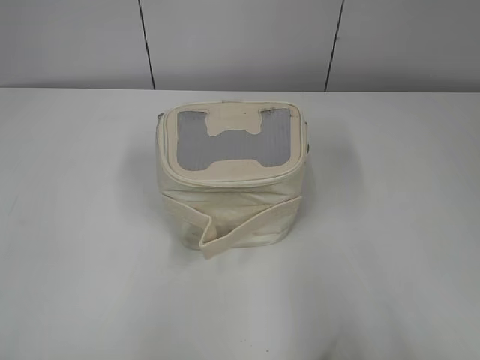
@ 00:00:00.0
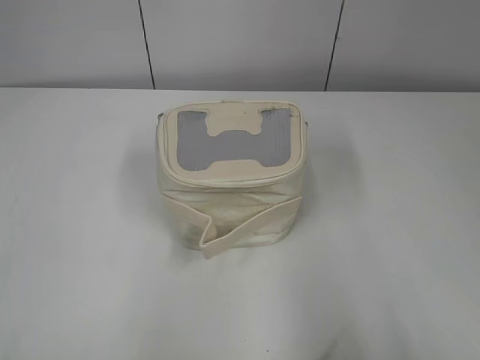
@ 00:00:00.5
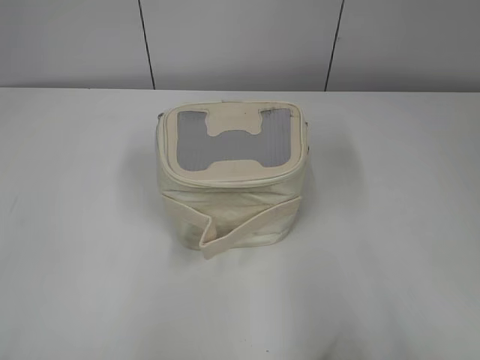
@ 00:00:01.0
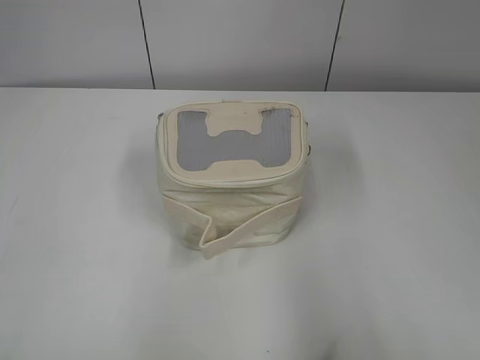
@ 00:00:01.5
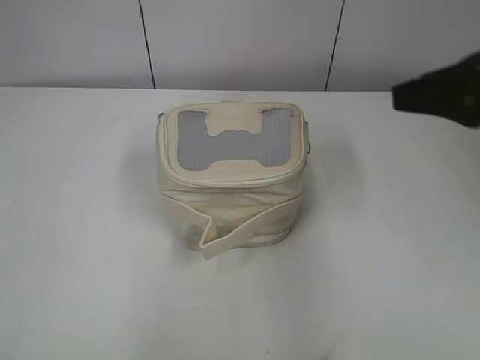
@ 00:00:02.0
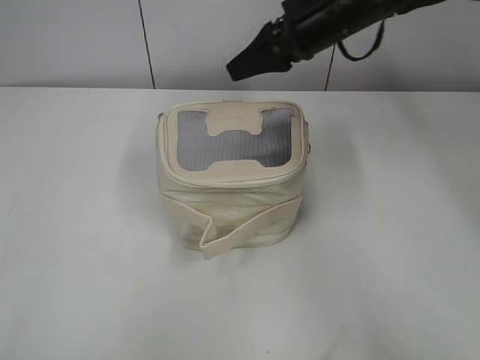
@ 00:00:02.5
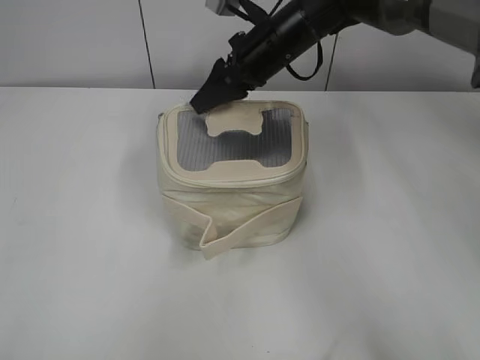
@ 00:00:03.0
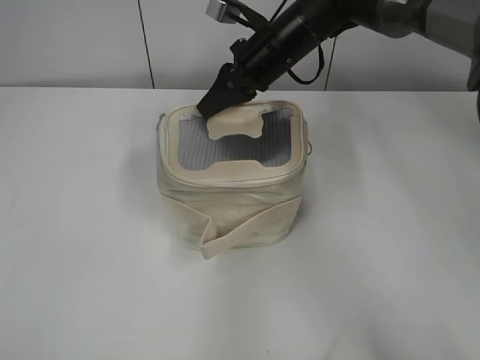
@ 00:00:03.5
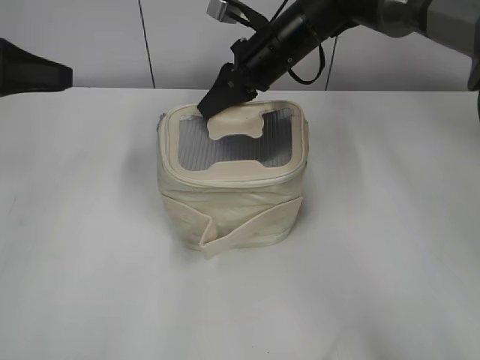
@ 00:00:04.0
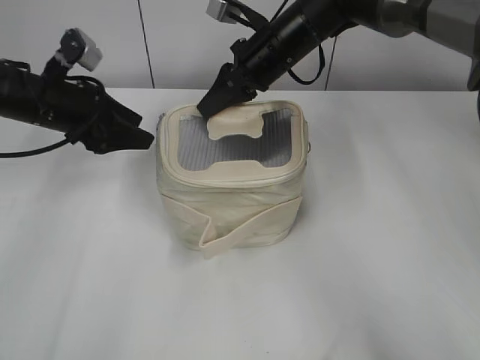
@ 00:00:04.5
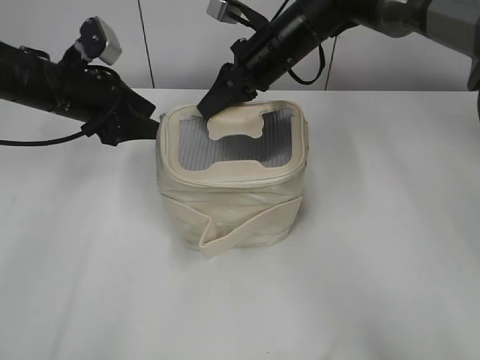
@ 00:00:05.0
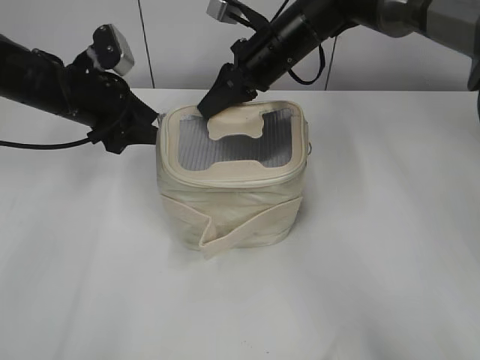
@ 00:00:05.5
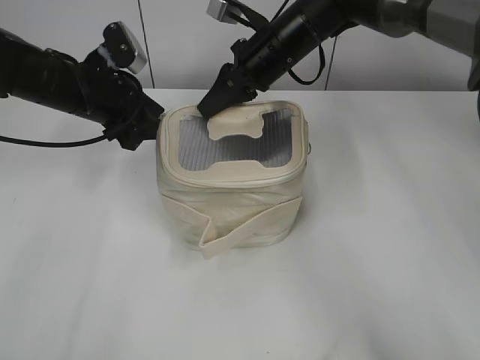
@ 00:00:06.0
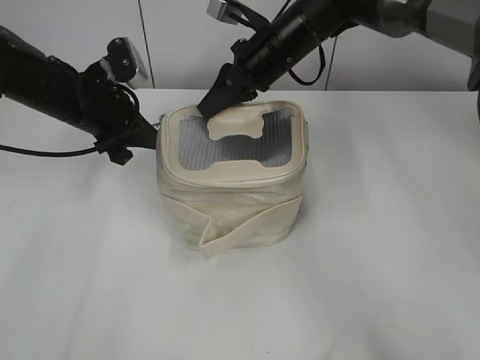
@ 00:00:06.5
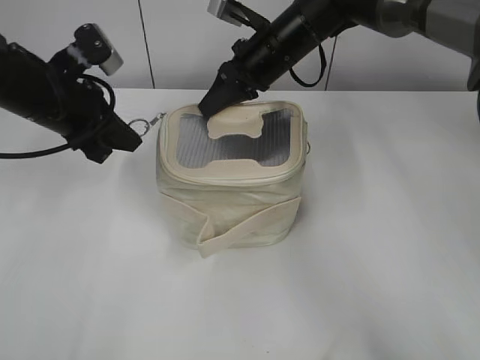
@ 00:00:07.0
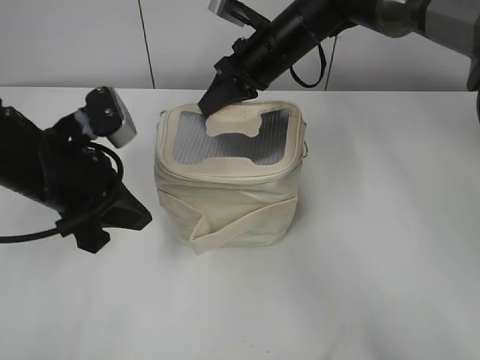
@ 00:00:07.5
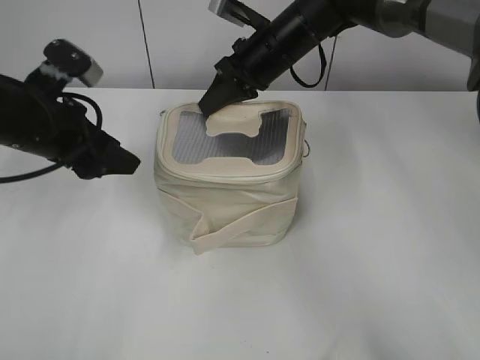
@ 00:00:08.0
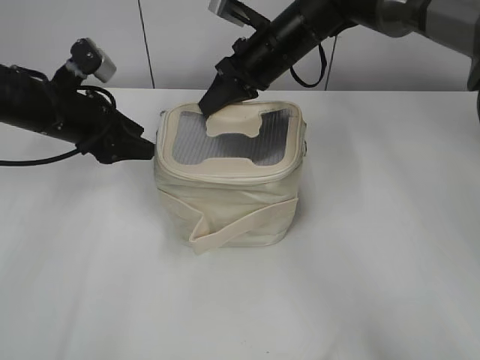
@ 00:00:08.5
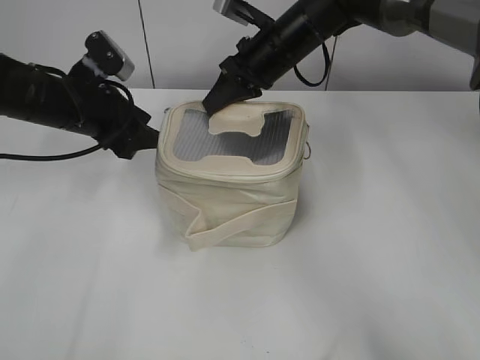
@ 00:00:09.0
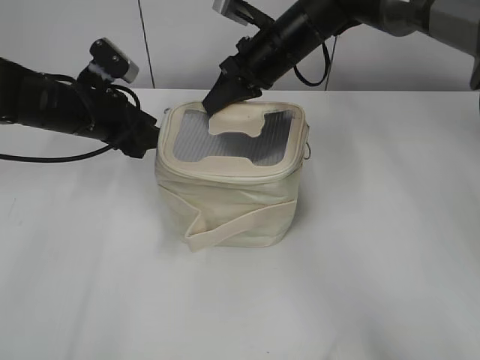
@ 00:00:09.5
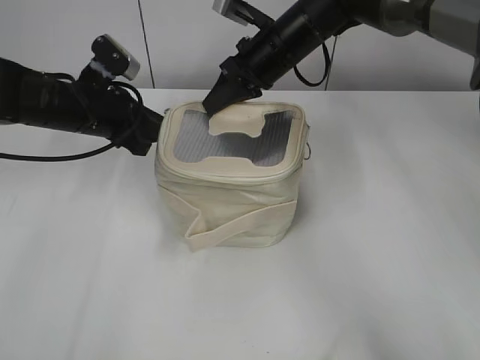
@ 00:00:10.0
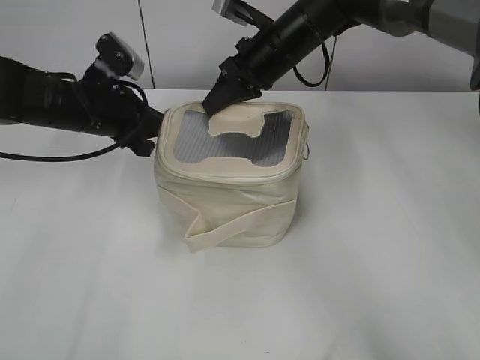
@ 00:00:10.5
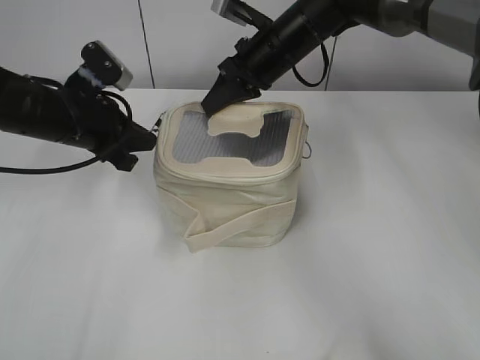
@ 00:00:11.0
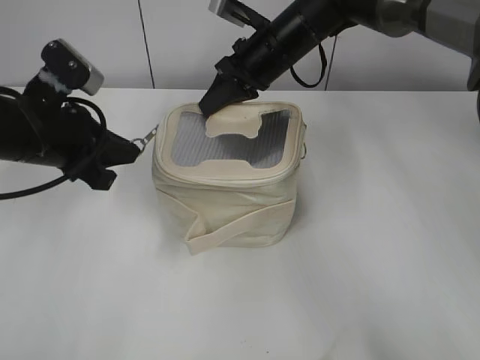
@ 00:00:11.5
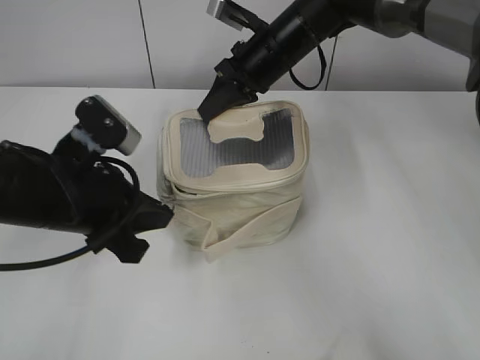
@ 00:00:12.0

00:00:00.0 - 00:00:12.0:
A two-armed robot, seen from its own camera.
00:00:02.0 - 00:00:04.0: The left gripper goes approximately 30 cm forward; the right gripper moves forward and to the left, roughly 35 cm, and closes up.
00:00:04.0 - 00:00:06.0: The left gripper shifts approximately 15 cm to the right, downward and forward.
00:00:06.0 - 00:00:08.0: The left gripper is displaced backward by approximately 10 cm, and closes and opens again.
00:00:08.0 - 00:00:10.0: The left gripper travels forward by some 10 cm.
00:00:10.0 - 00:00:12.0: The left gripper heads backward, covering about 15 cm, and closes.

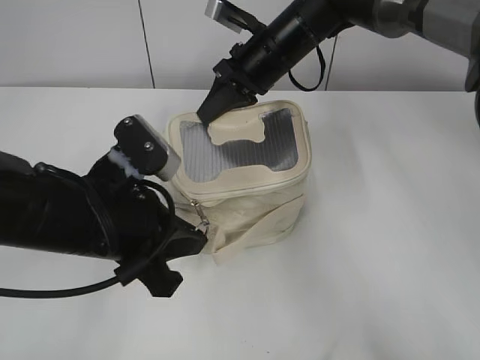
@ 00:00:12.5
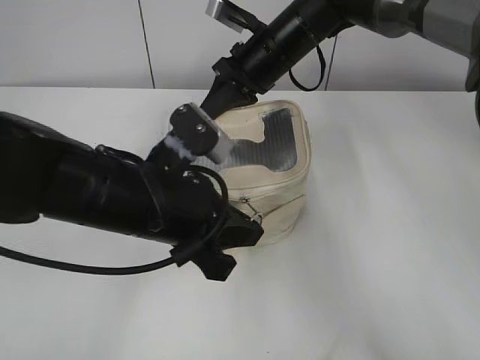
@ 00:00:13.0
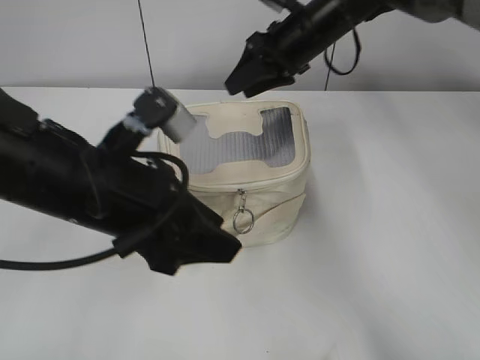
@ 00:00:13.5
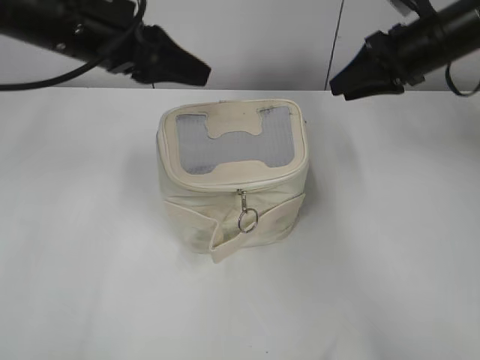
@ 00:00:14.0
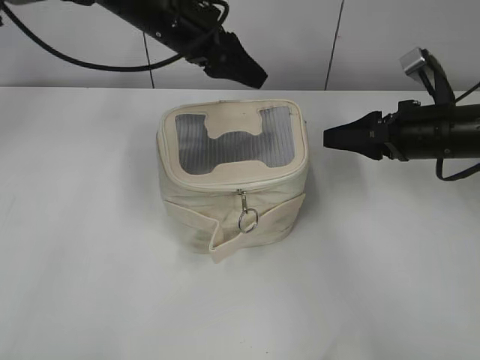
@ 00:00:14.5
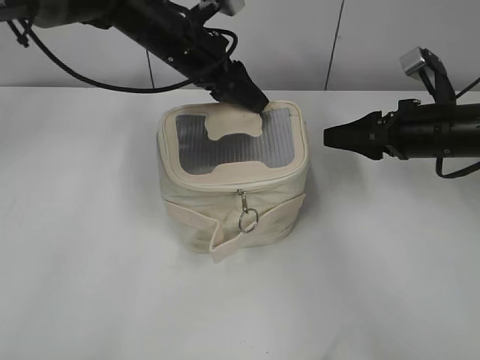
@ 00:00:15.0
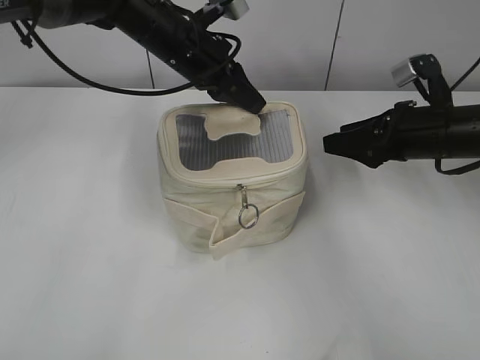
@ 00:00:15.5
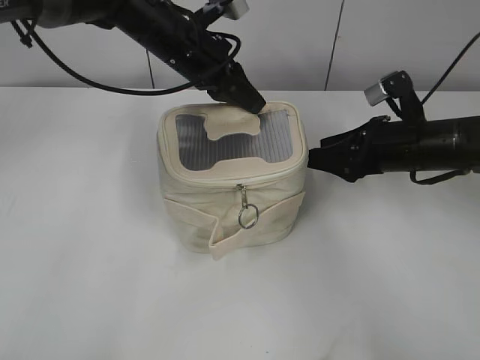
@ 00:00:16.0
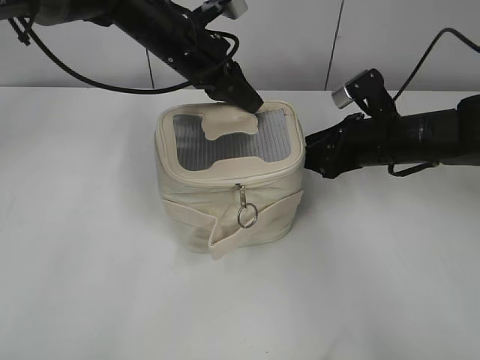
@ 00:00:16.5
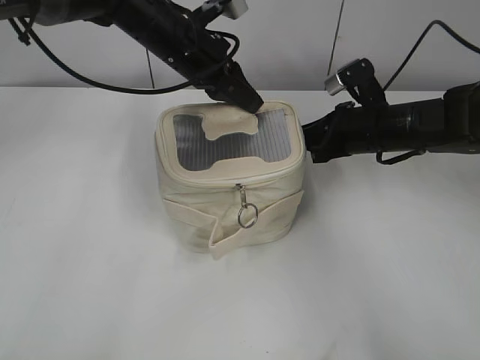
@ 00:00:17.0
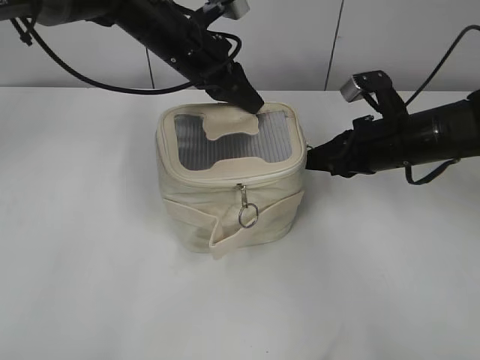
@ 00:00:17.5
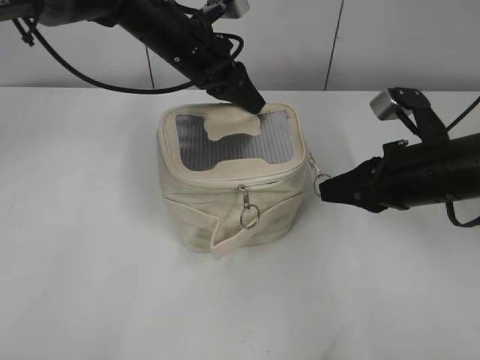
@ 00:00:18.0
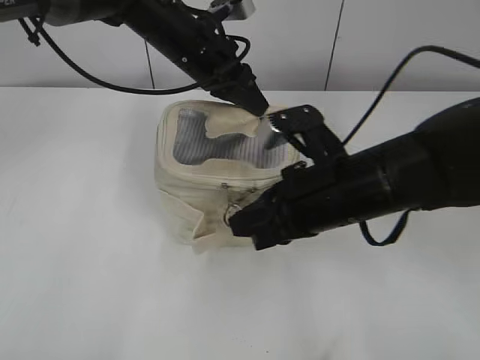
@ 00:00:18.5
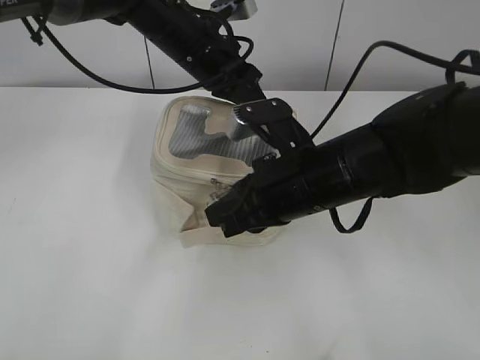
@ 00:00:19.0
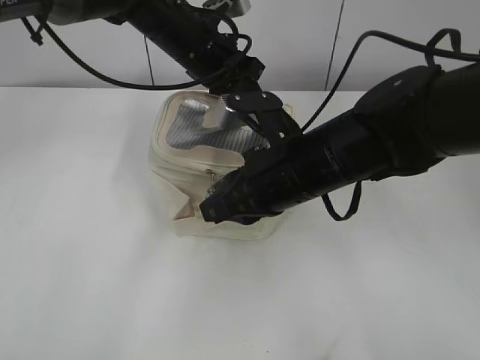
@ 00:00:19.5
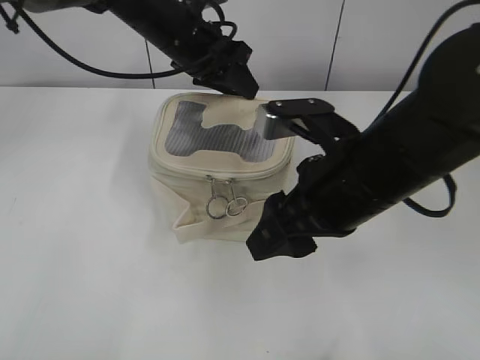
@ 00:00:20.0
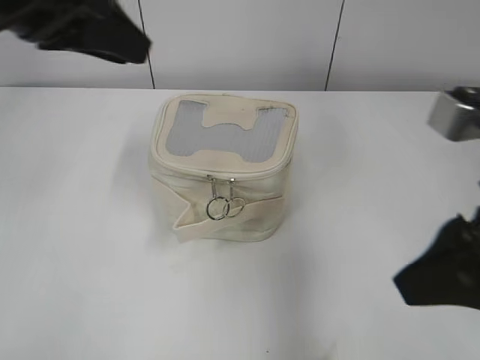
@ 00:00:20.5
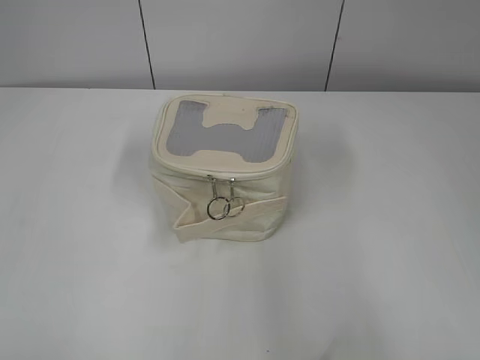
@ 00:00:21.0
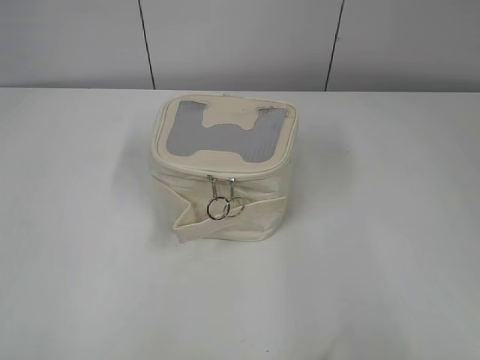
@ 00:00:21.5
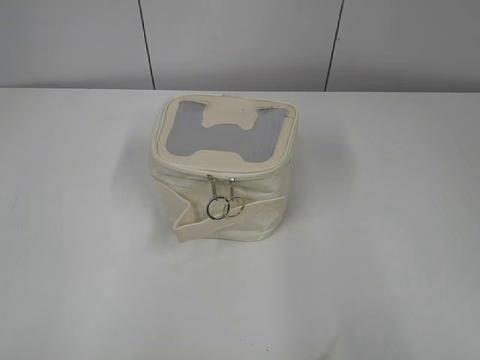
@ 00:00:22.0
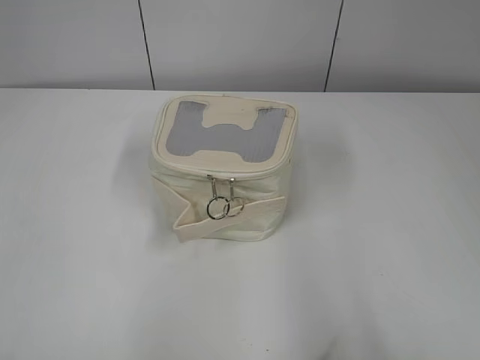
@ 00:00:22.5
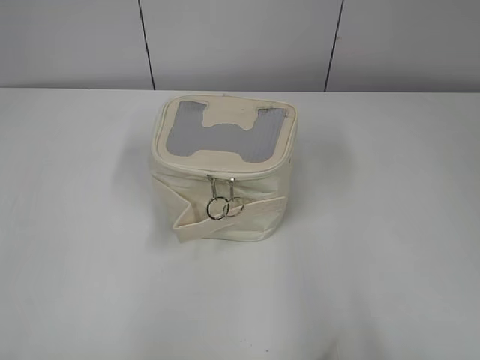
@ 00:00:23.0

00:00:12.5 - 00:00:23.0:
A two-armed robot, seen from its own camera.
Step, 00:00:13.5 - 00:00:19.5: Zip up the bag with your right hand.
00:00:12.5 - 00:00:14.5: The right gripper goes about 20 cm to the right and backward, and opens; the left gripper travels forward by about 25 cm, and opens up.
00:00:14.5 - 00:00:16.5: The right gripper shifts by some 5 cm. The left gripper closes.
00:00:16.5 - 00:00:19.0: The right gripper travels to the left and backward by roughly 15 cm, and closes its fingers.
00:00:19.0 - 00:00:21.0: The left gripper heads backward and to the left, covering about 50 cm, and opens up. Meanwhile the right gripper heads backward, to the right and upward, covering about 30 cm, and opens.
00:00:21.0 - 00:00:23.0: The left gripper heads downward, covering about 5 cm, while the right gripper moves backward, some 5 cm.
